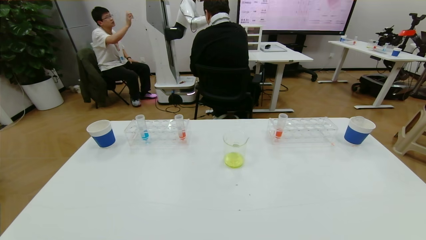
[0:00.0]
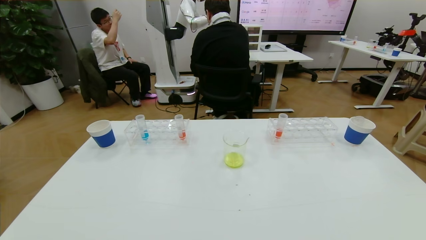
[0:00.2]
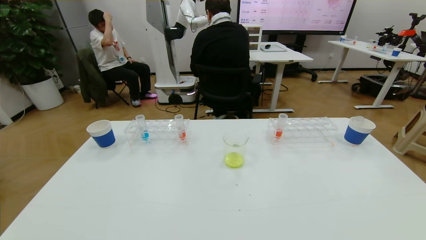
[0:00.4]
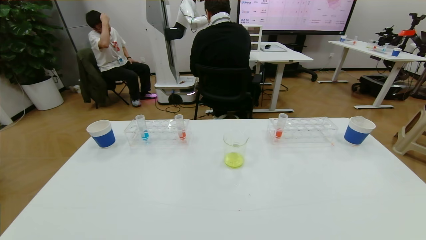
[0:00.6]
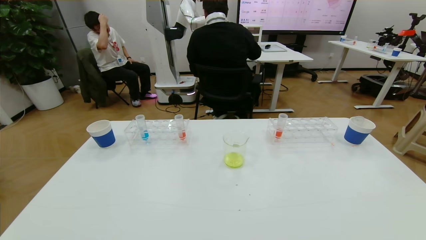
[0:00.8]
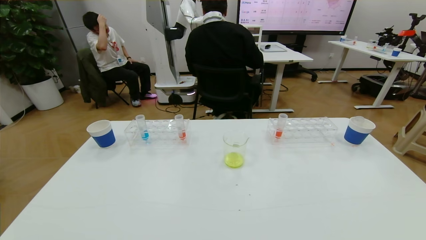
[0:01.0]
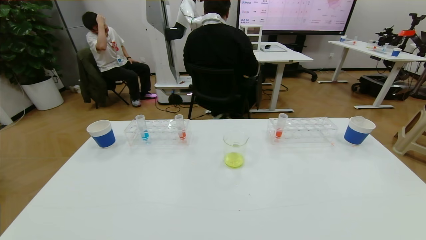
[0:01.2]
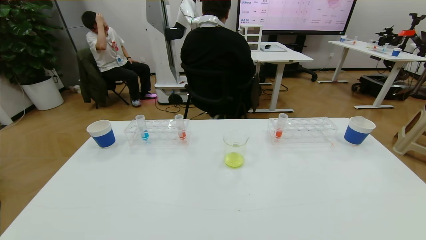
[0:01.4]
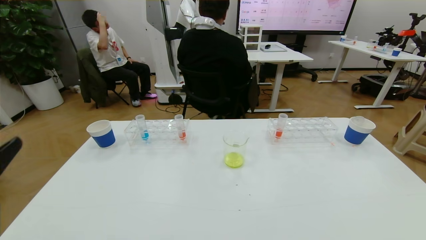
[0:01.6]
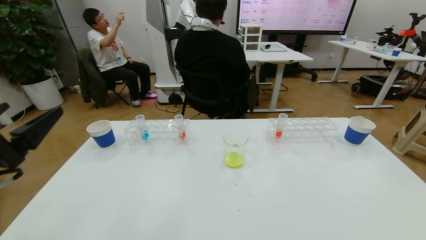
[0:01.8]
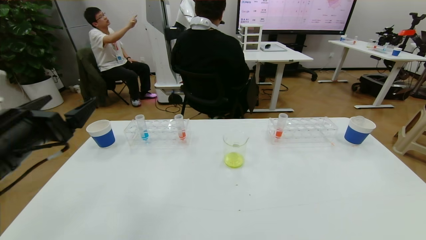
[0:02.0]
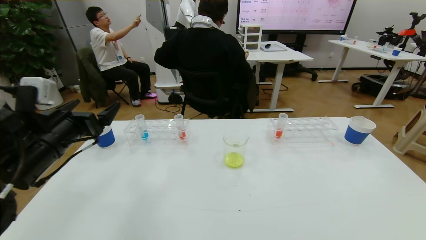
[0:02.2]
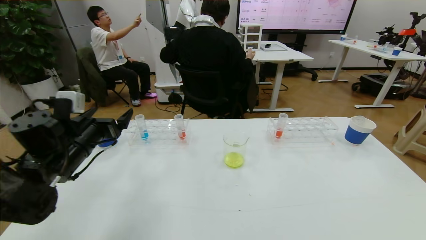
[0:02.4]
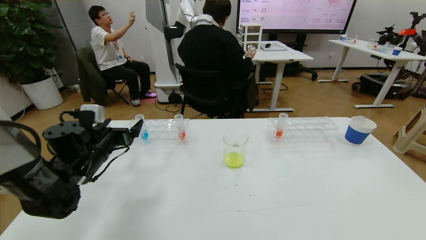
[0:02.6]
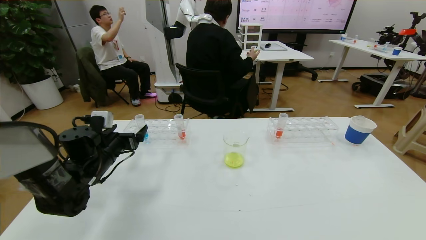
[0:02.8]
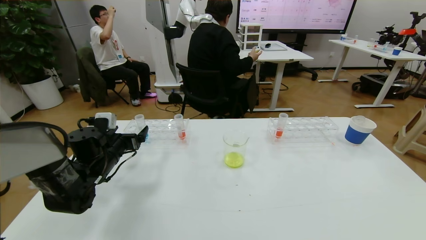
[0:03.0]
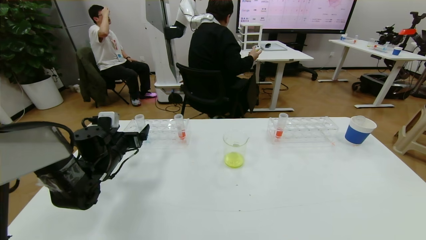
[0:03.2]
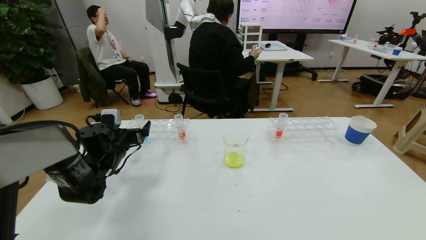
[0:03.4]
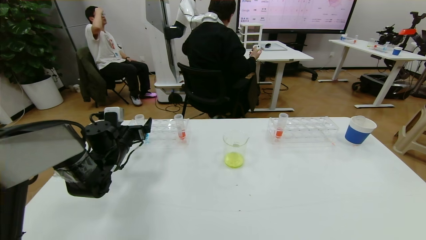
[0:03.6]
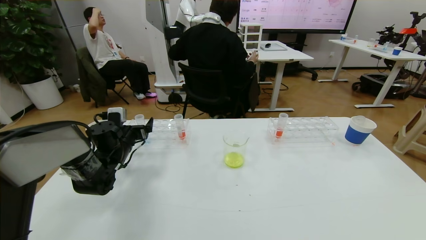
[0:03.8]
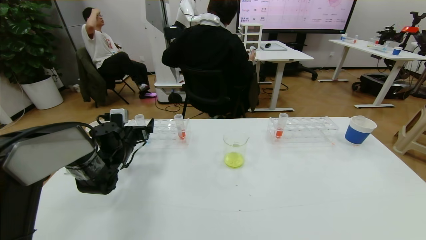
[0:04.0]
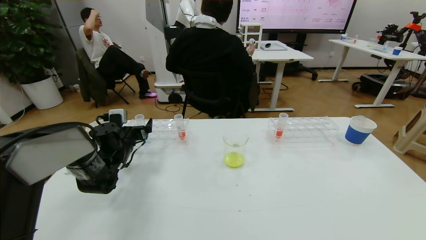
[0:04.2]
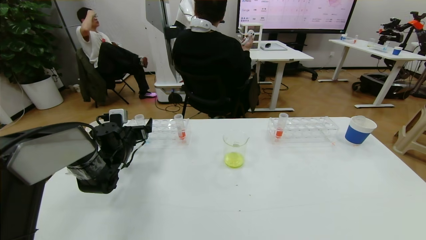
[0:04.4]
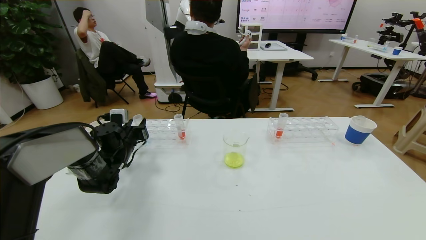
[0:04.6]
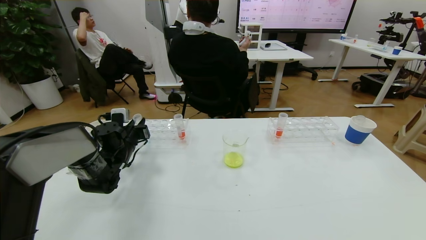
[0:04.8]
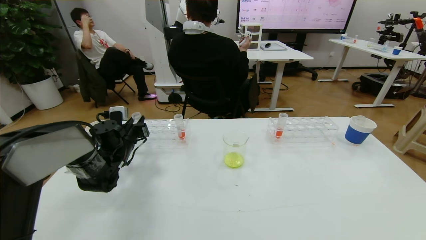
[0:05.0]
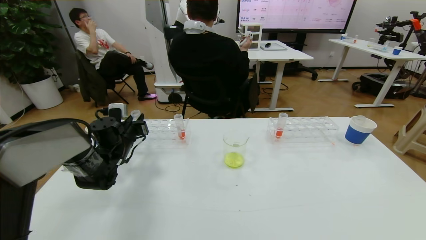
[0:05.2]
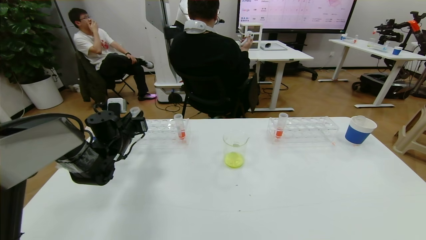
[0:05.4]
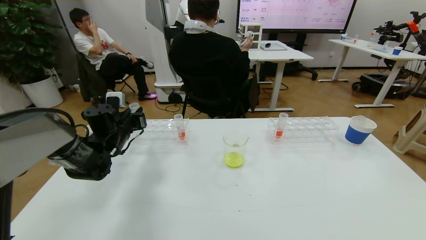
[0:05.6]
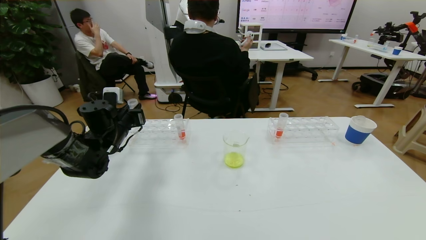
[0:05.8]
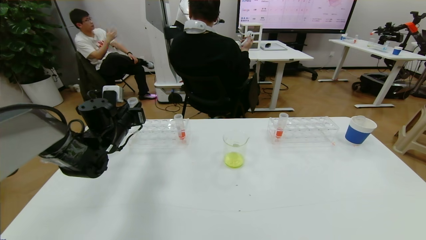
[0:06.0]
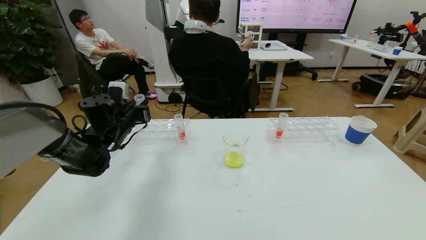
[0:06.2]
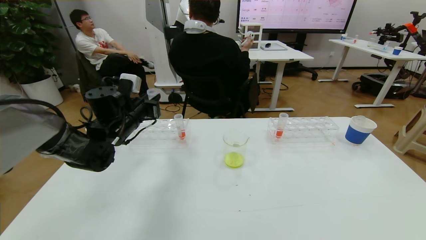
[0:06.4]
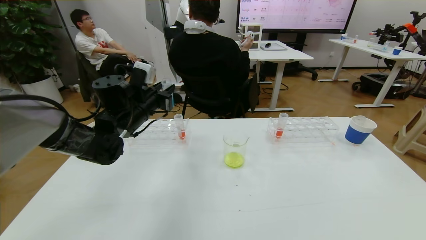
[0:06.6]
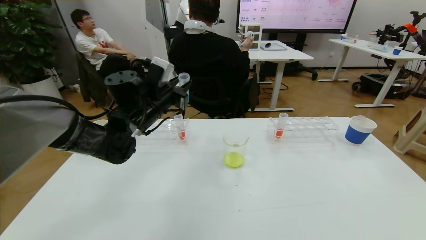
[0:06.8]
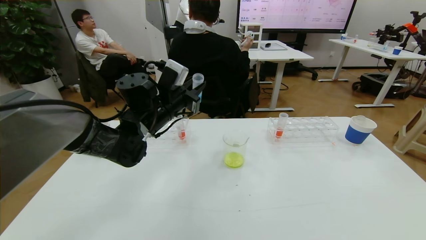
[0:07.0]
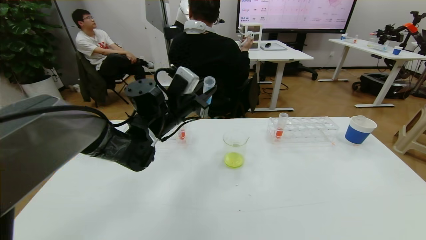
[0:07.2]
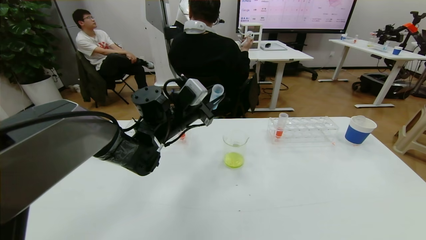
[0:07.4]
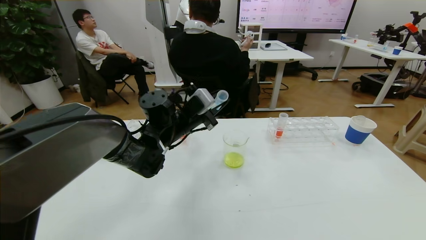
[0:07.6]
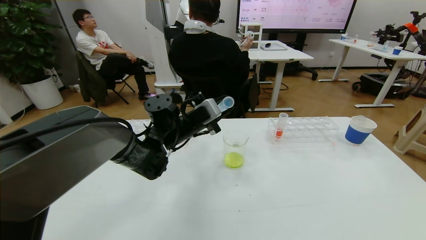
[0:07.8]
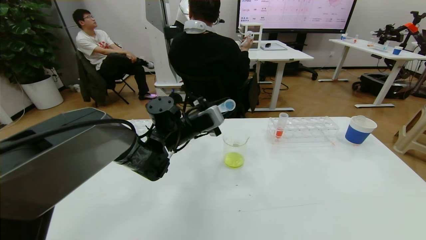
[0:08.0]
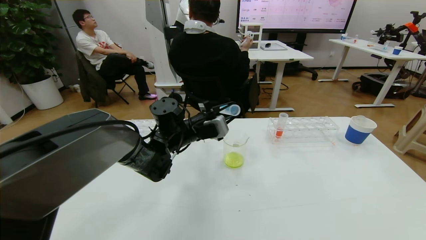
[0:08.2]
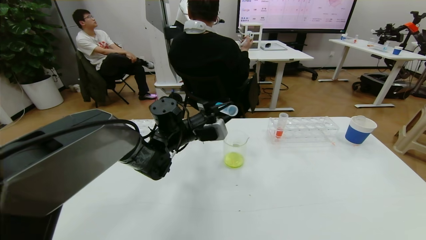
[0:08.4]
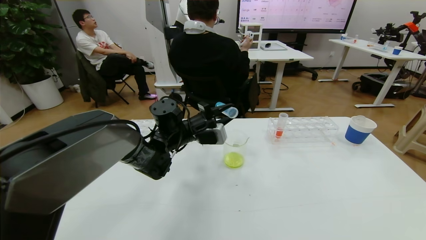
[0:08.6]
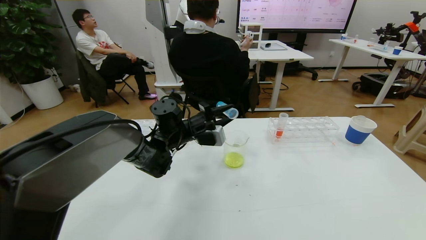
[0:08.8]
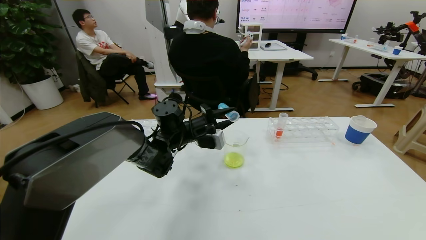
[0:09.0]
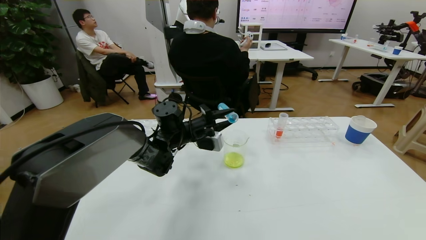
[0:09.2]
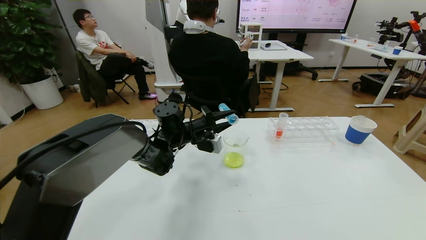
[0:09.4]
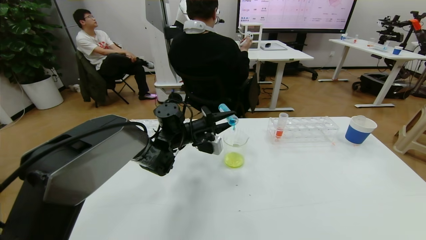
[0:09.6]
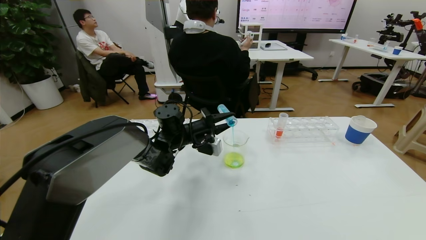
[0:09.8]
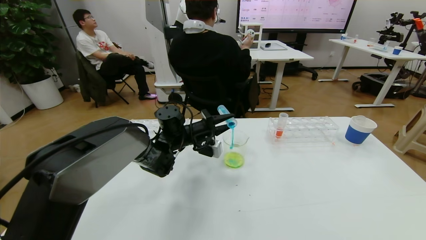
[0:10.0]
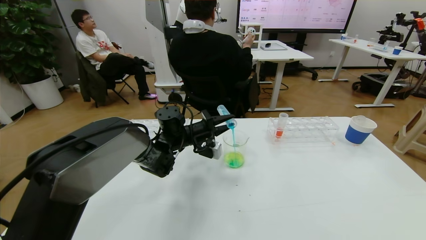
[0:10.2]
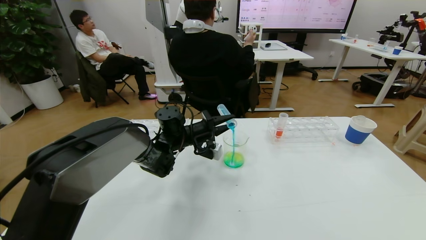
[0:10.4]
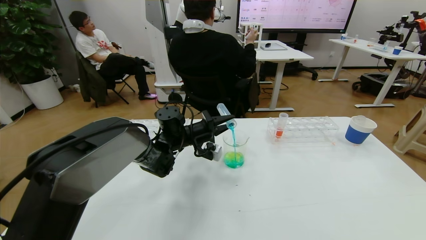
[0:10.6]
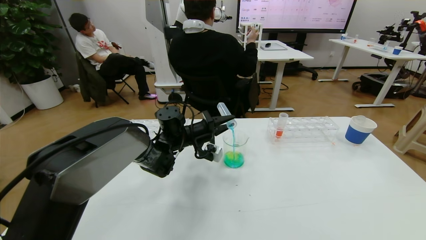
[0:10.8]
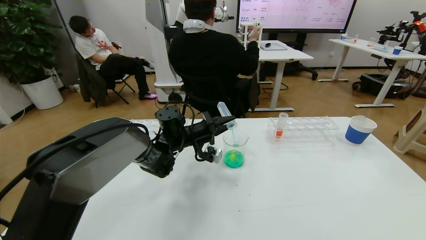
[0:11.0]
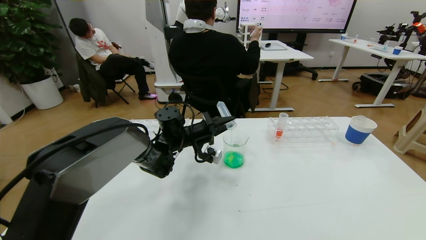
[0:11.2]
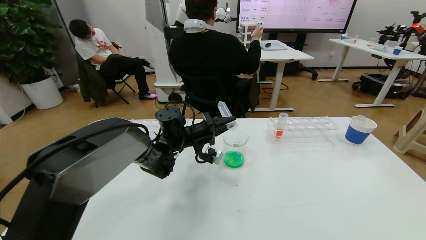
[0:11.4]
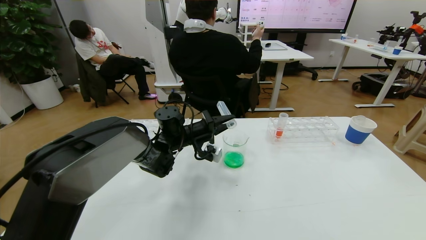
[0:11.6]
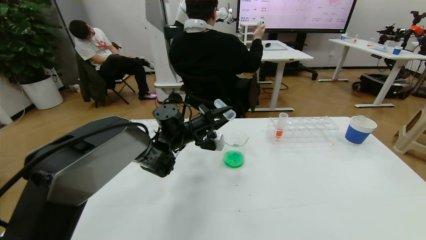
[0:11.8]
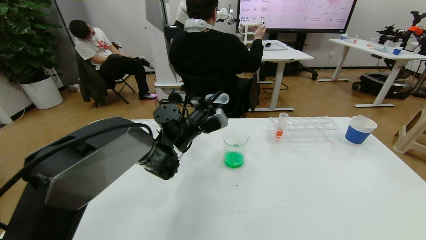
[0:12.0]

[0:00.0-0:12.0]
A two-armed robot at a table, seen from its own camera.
Task of the whole recording: pick up the test tube with yellow pigment and the test tube with blue pigment by grippers and pour them into the beaker.
0:00.0 to 0:01.6: The left gripper shifts roughly 20 cm upward and forward.
0:01.6 to 0:03.0: The left gripper moves forward and downward, some 35 cm.
0:03.0 to 0:04.4: The left gripper is displaced forward by about 5 cm.
0:04.4 to 0:06.0: The left gripper goes approximately 10 cm upward, and closes up.
0:06.0 to 0:07.6: The left gripper heads to the right, covering some 20 cm.
0:09.0 to 0:10.4: The grippers move only a little.

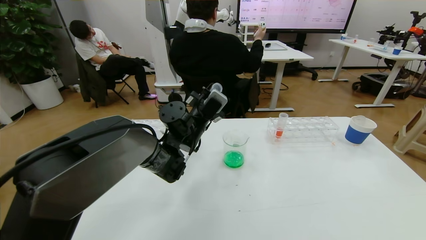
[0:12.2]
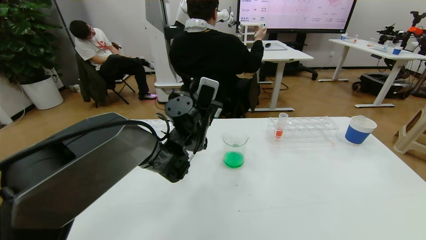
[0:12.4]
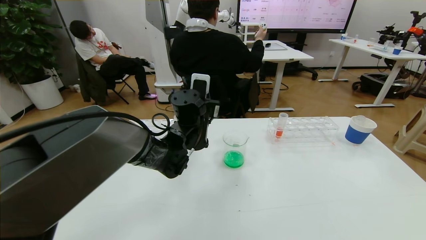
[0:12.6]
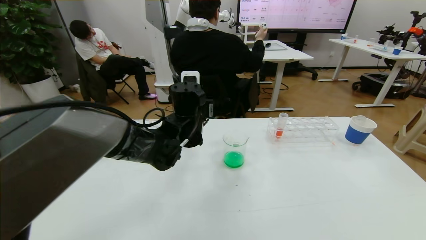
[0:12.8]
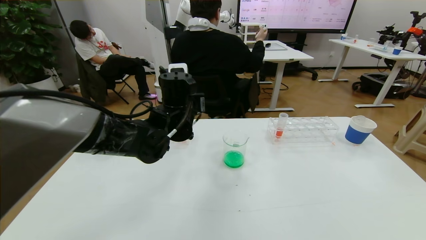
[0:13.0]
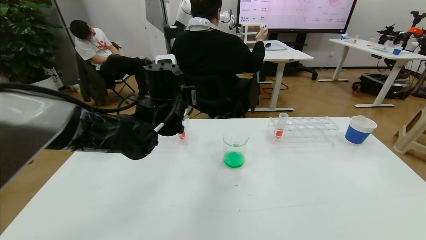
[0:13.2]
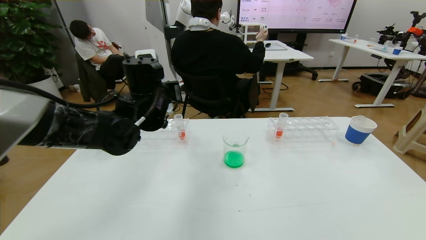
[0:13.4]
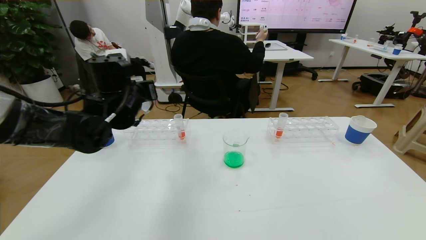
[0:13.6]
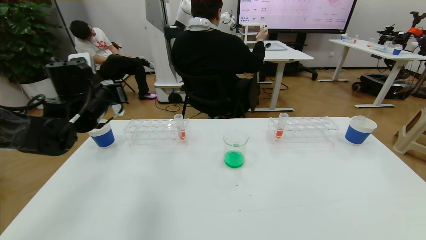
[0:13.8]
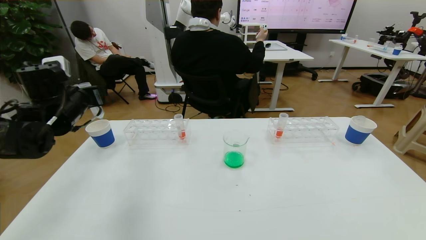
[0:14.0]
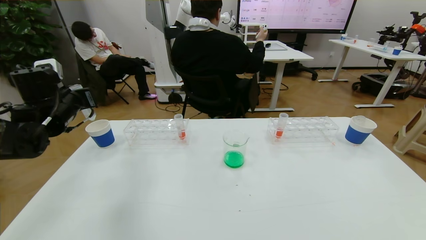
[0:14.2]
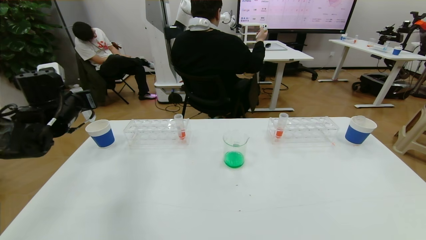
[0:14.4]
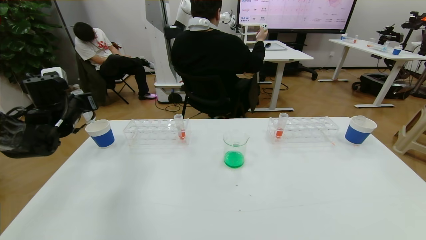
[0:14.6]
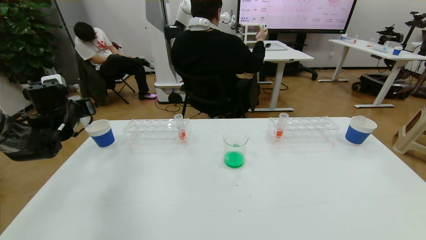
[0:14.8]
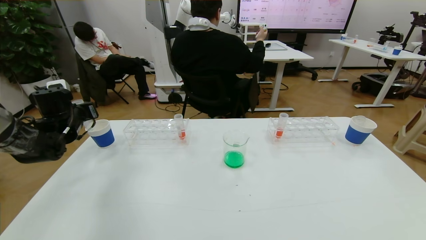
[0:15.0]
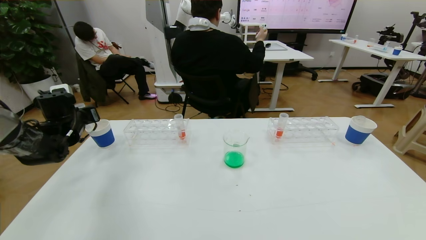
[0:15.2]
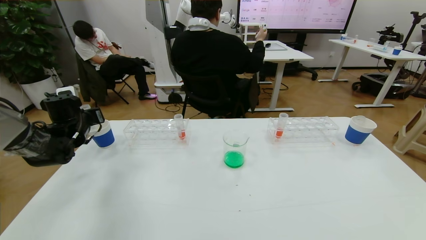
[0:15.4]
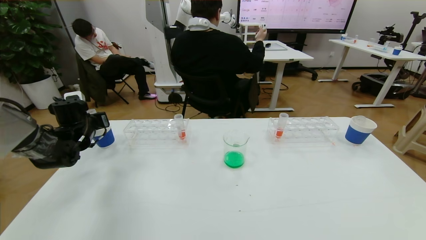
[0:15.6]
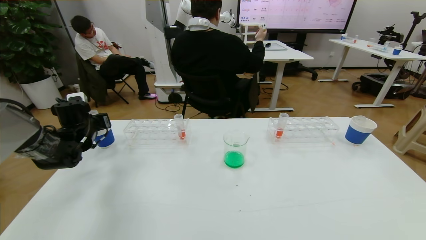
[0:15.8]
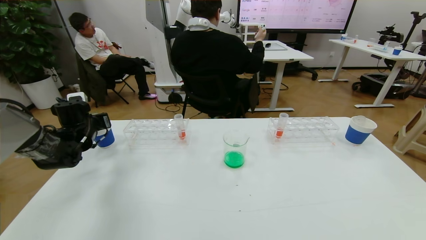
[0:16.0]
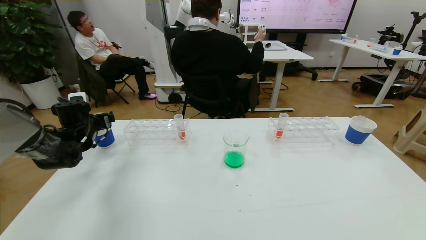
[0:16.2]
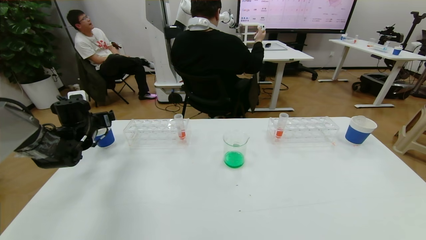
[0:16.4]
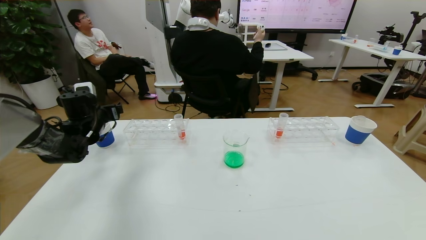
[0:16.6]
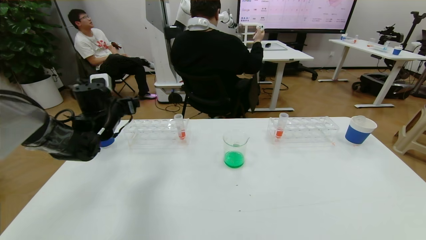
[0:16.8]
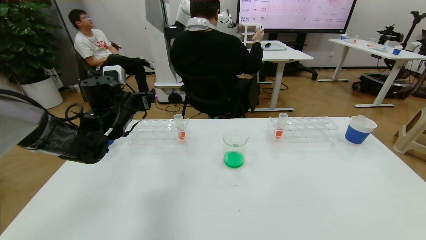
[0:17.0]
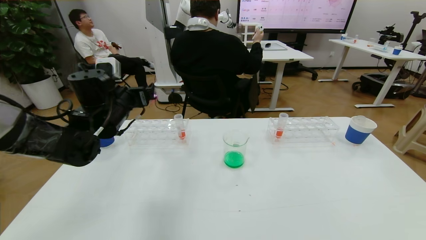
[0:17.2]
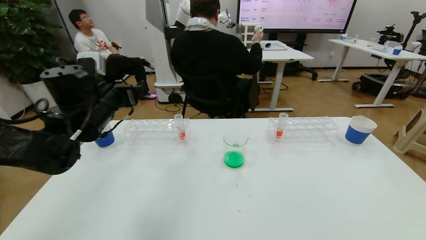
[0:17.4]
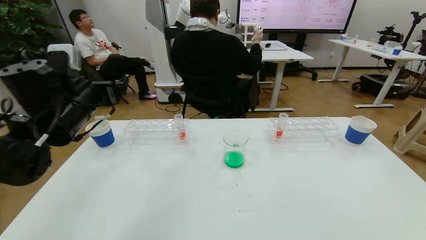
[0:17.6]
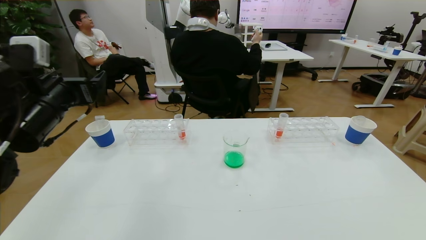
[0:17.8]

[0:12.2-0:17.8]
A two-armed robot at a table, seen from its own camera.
Task of the whole recording: pick up the test tube with yellow pigment and the test tube with blue pigment by grippers and pour them into the beaker.
0:12.2 to 0:13.6: The left gripper shifts some 15 cm to the left and upward.
0:13.6 to 0:15.0: The left gripper goes about 20 cm to the left and downward.
0:15.0 to 0:16.4: The left gripper opens.
0:16.4 to 0:17.8: The left gripper travels backward, upward and to the right by some 20 cm.
